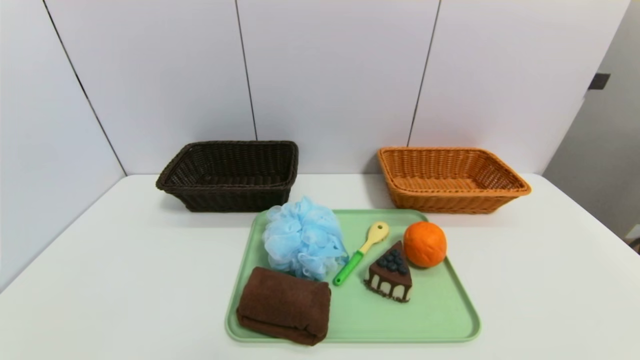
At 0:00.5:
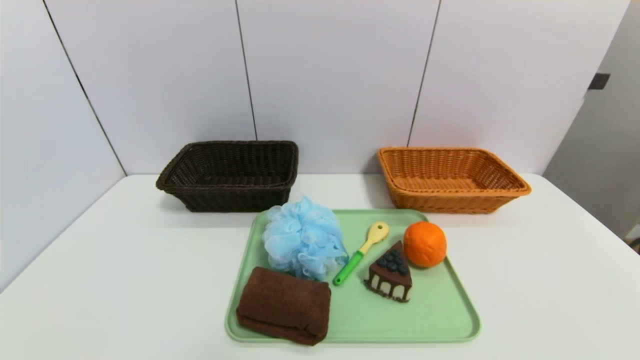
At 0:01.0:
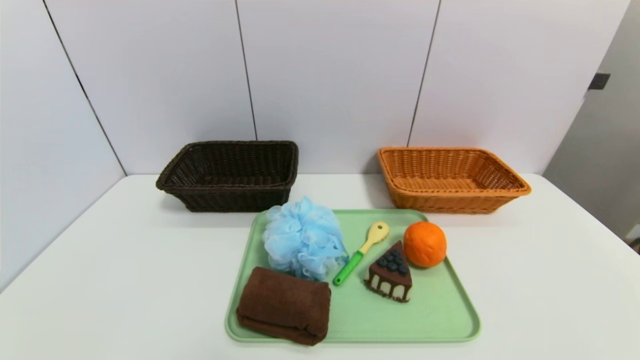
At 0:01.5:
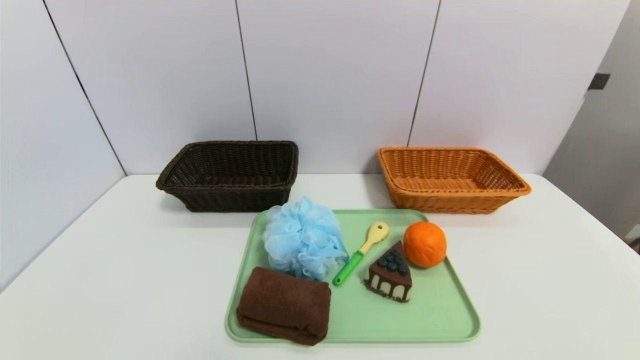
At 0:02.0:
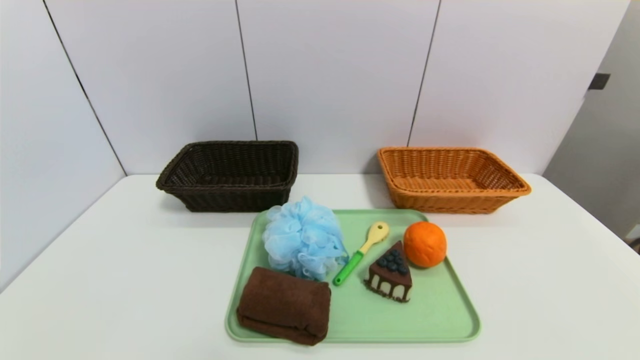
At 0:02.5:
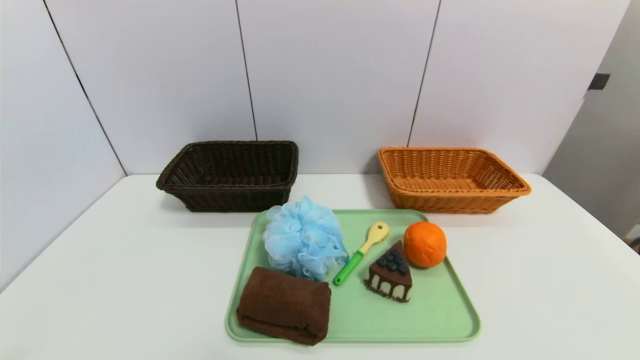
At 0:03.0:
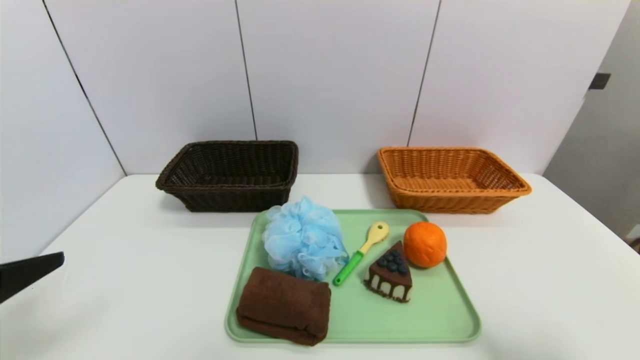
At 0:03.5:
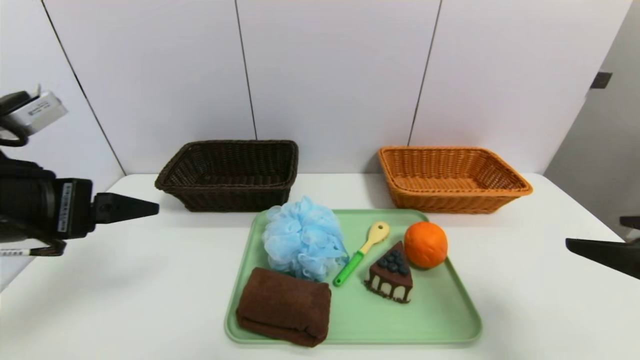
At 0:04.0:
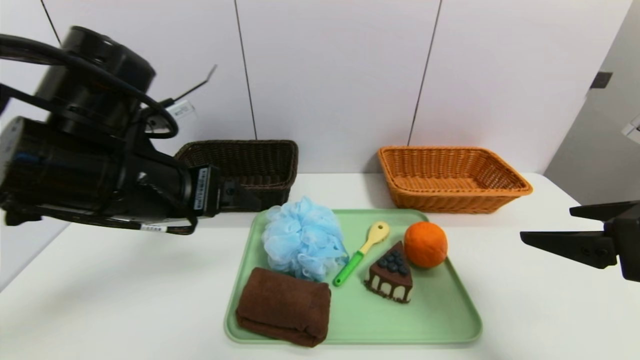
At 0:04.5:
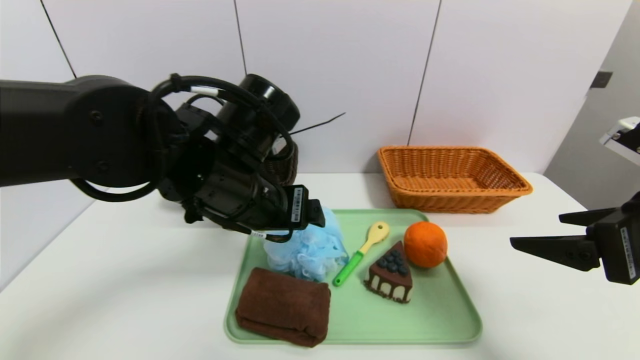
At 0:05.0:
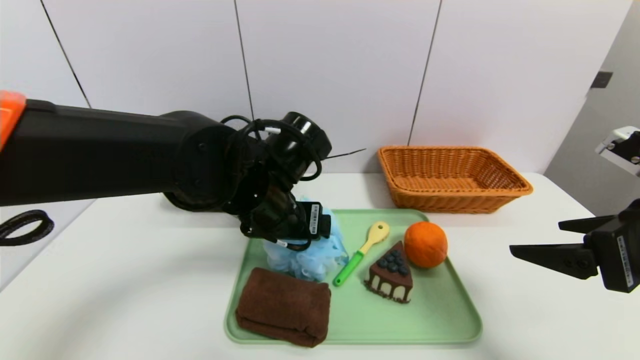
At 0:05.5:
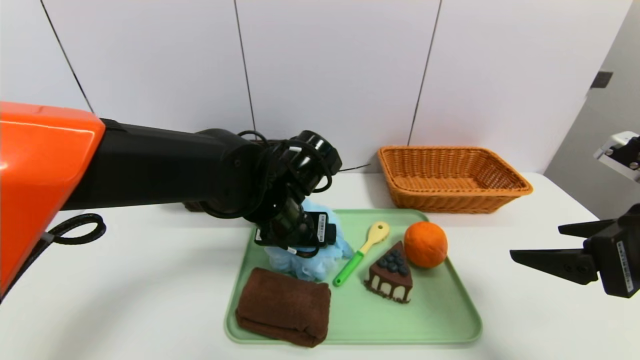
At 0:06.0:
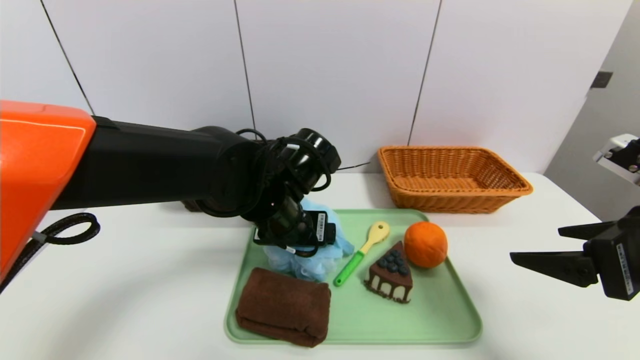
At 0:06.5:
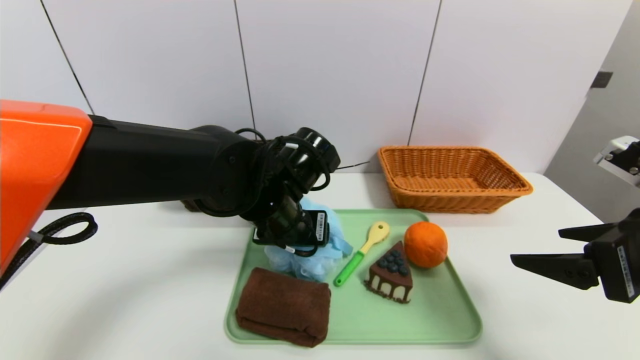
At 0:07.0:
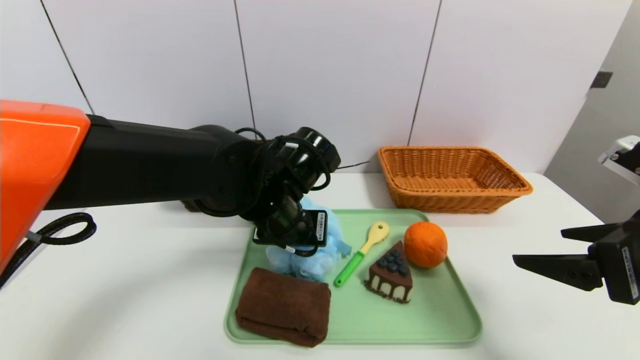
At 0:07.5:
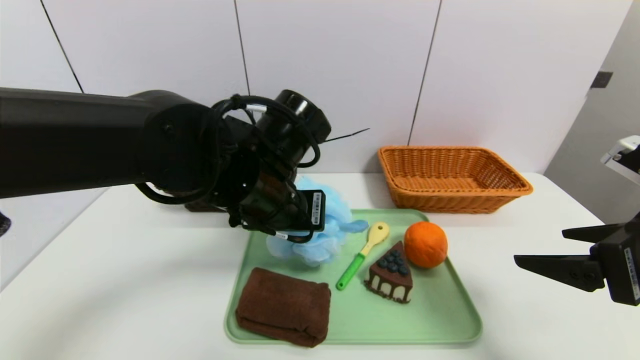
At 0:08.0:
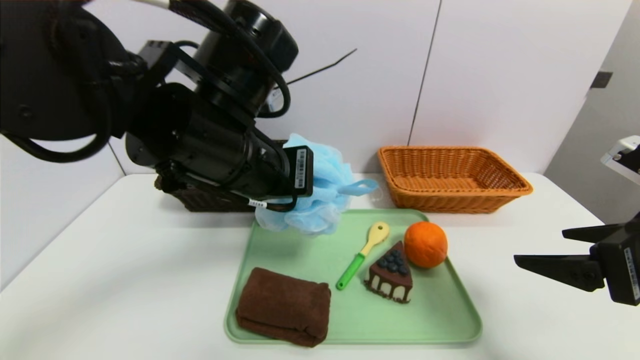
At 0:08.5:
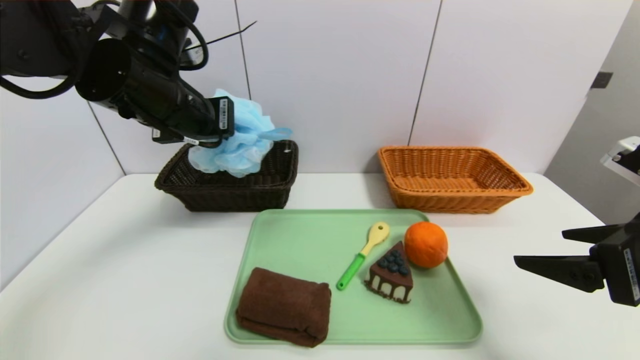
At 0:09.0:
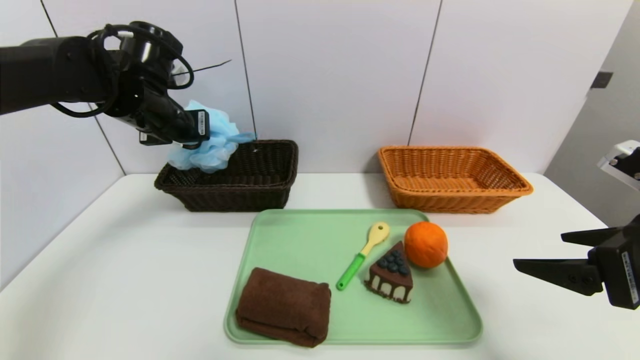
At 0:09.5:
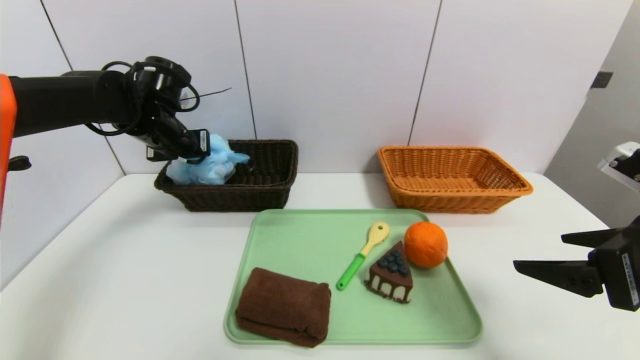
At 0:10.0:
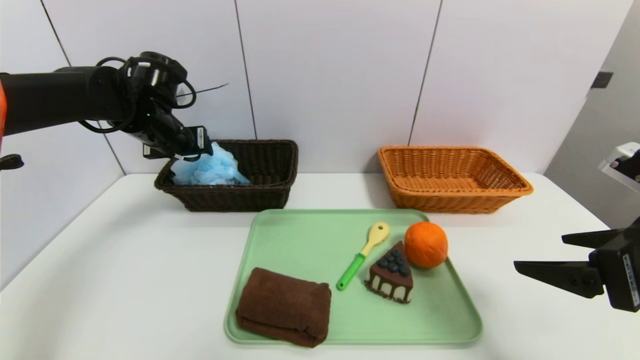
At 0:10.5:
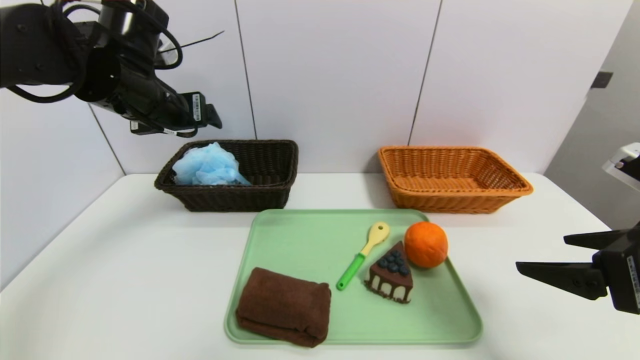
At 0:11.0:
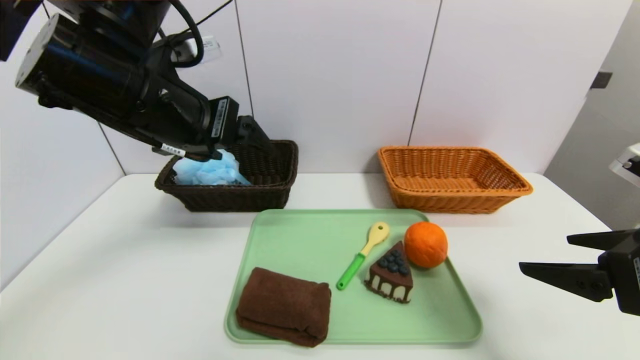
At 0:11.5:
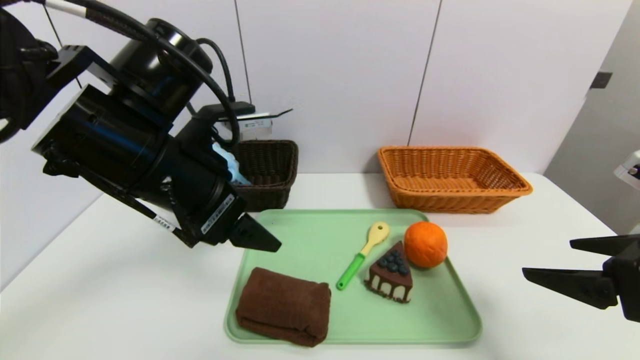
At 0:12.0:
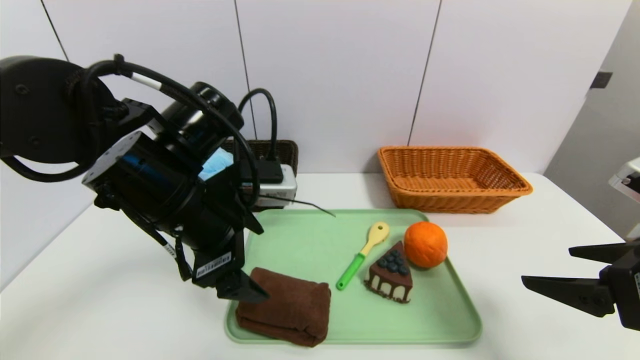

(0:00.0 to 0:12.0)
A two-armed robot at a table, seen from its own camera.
Task of the whole recording: place the food in the right basket with the right gripper, and place the non food items in the left basket with the left gripper.
Step, 0:00.0 - 0:10.0: Grasp the bath ball and put it in the left basket.
0:02.0 - 0:04.0: The left gripper shifts roughly 35 cm forward, upward and to the right. The right gripper goes approximately 25 cm forward and upward.
0:04.0 - 0:06.0: The left gripper goes about 15 cm to the right, downward and forward.
0:06.0 - 0:08.0: The left gripper heads upward and backward, covering about 15 cm, and closes up.
0:08.0 - 0:10.0: The left gripper travels forward and to the left by some 25 cm, and opens up.
0:10.0 - 0:12.0: The left gripper travels backward and to the right by roughly 20 cm.

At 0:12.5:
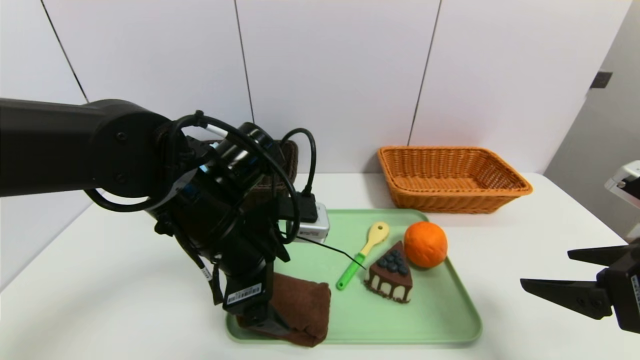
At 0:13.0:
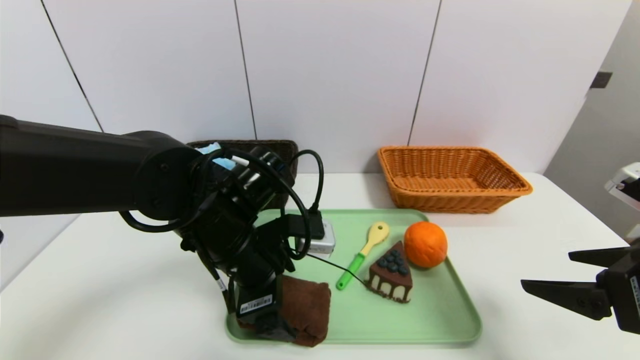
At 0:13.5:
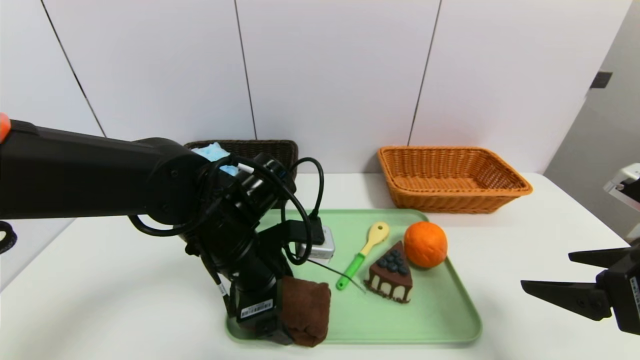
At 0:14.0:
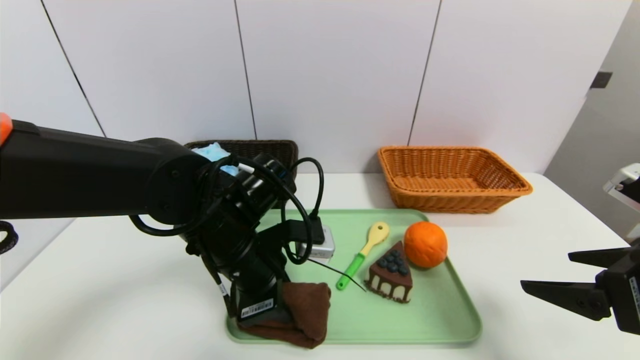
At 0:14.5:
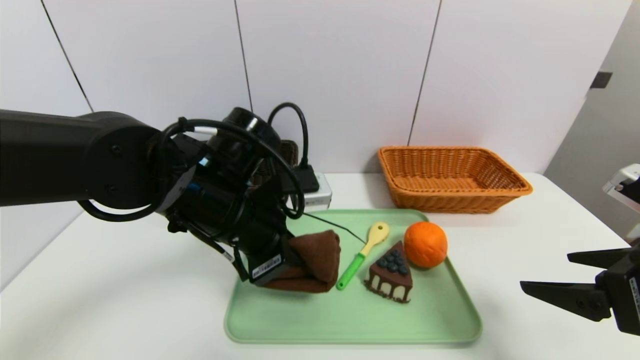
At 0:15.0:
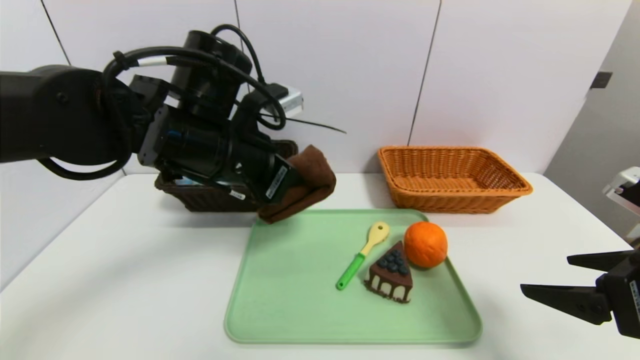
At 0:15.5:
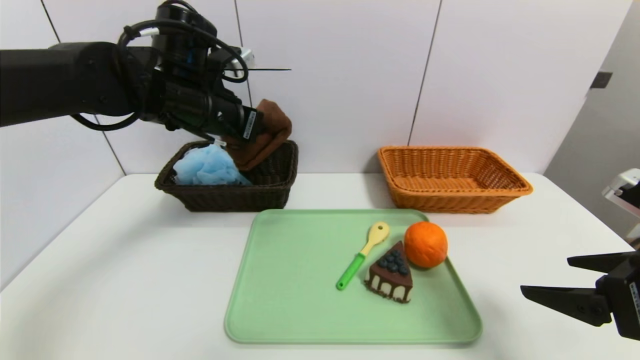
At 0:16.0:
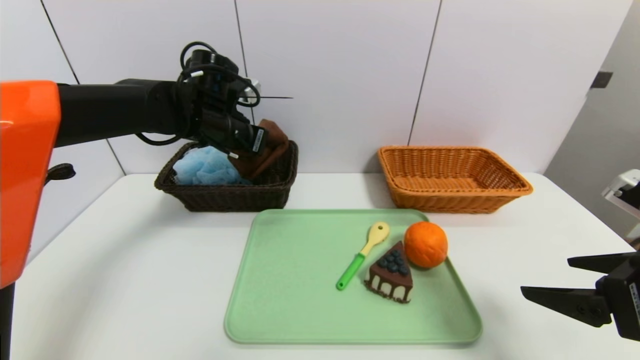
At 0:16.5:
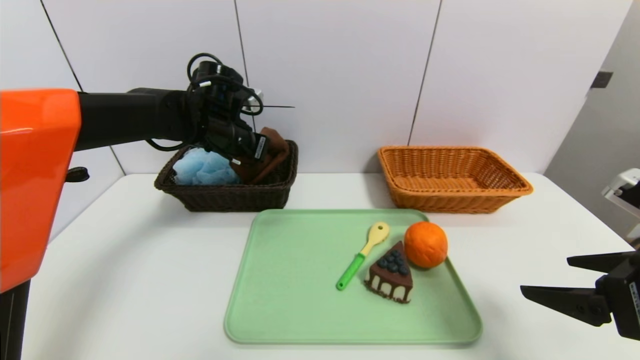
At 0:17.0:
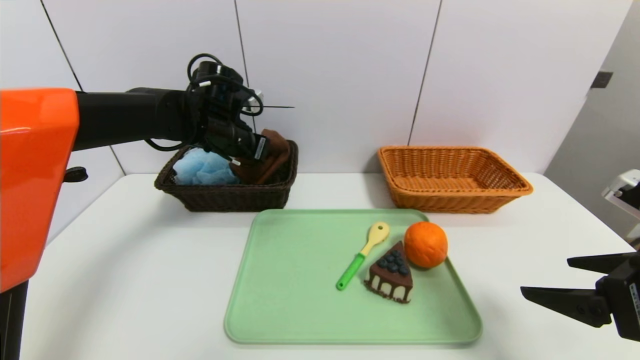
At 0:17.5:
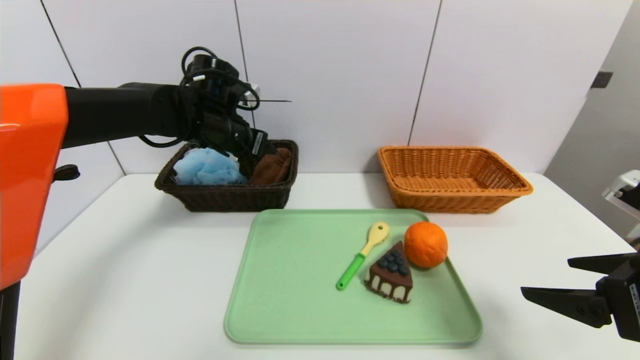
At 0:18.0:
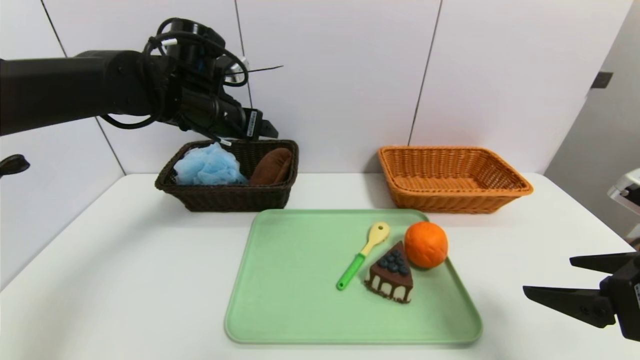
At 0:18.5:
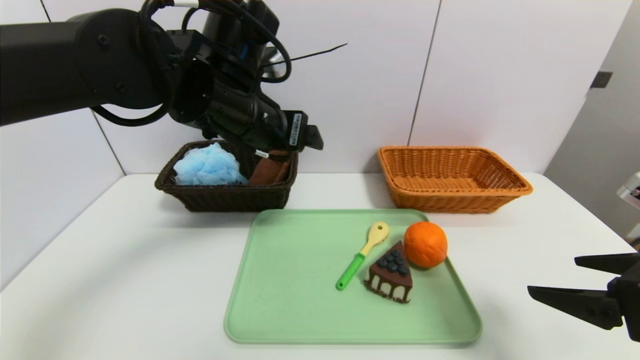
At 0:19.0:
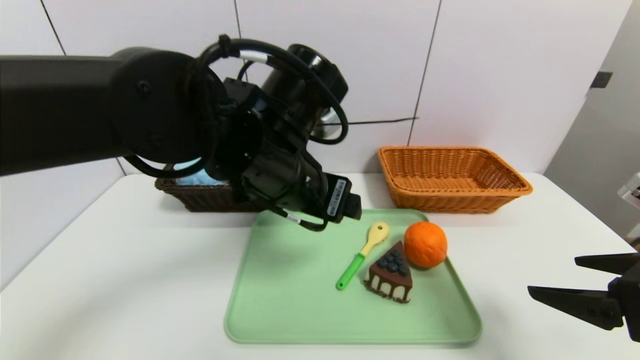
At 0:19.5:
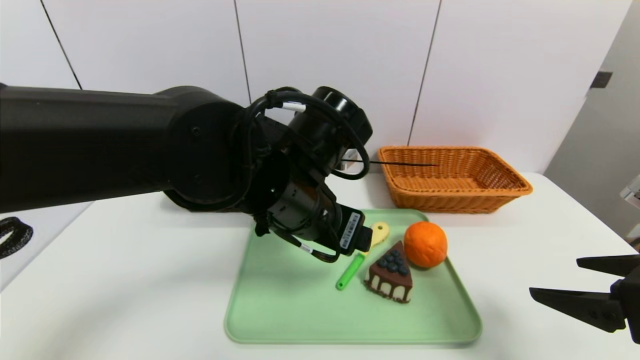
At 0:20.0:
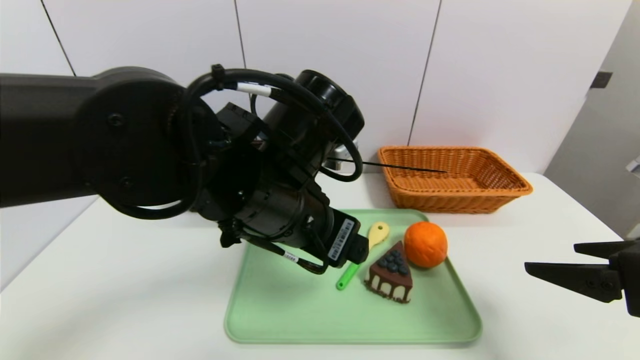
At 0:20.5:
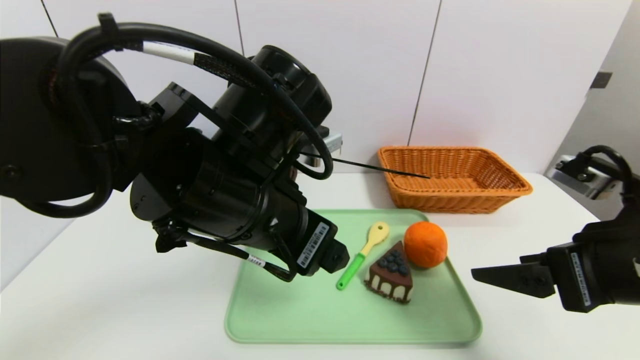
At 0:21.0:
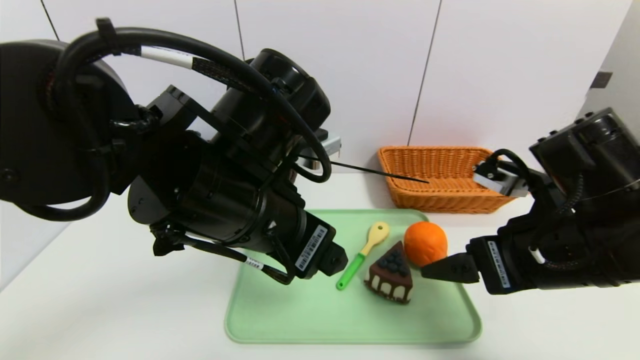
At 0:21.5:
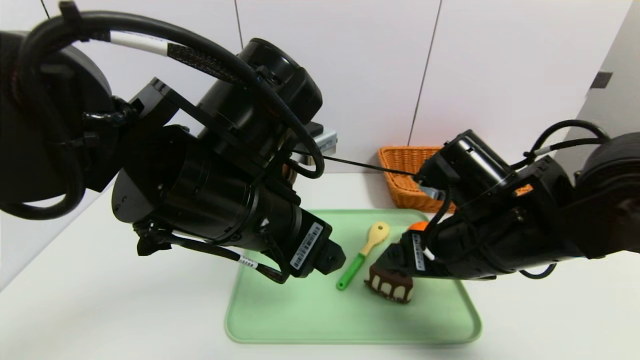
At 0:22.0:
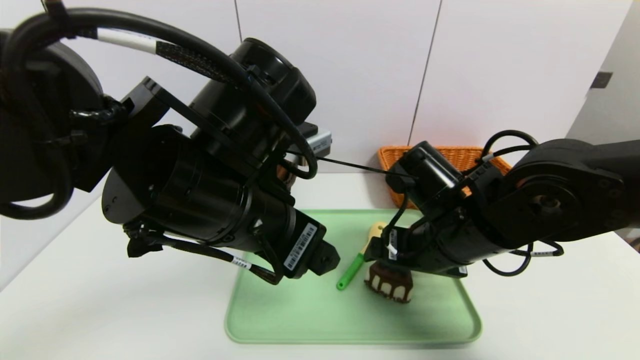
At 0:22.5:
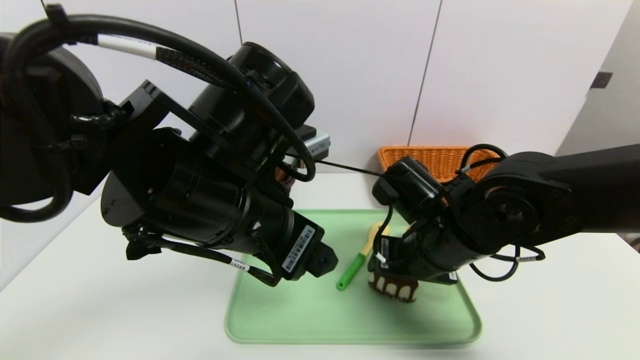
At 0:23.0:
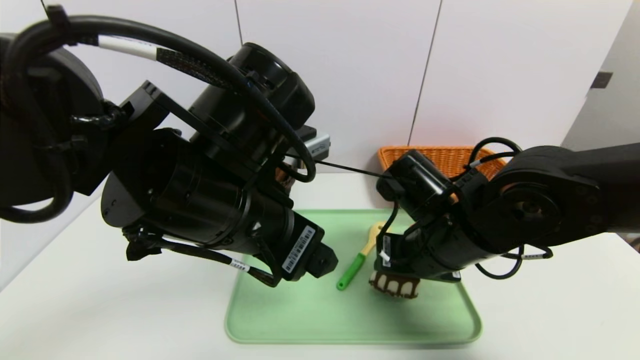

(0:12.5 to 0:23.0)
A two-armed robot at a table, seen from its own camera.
Task of the whole recording: place the food in the right basket with the right gripper, and place the non food items in the left basket with the left gripper.
Step, 0:12.5 - 0:17.5: Grasp the brown towel and put it in the left basket.
0:12.5 - 0:14.5: The left gripper closes.
0:14.5 - 0:16.5: The left gripper goes some 15 cm forward.
0:16.5 - 0:19.0: The left gripper travels backward and to the right by some 20 cm, and opens.
0:19.0 - 0:21.0: The right gripper moves to the left and forward, roughly 10 cm; the left gripper goes roughly 5 cm backward.
0:21.0 - 0:23.0: The right gripper heads to the left and forward, covering about 10 cm, and closes.
